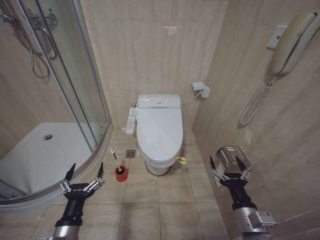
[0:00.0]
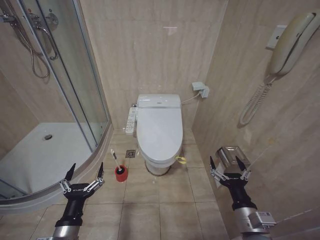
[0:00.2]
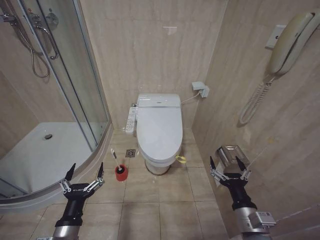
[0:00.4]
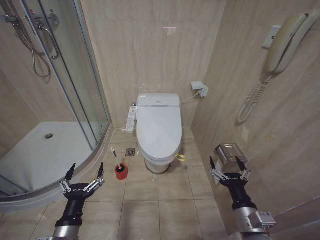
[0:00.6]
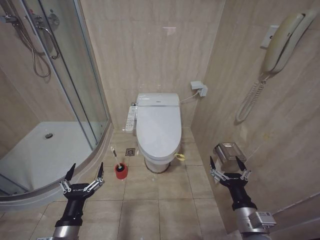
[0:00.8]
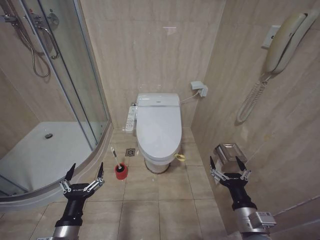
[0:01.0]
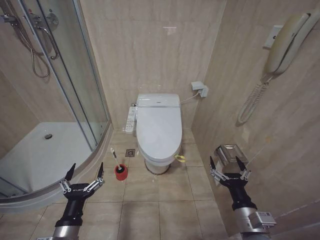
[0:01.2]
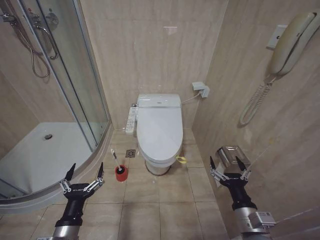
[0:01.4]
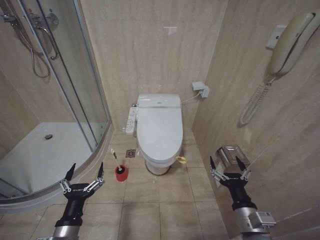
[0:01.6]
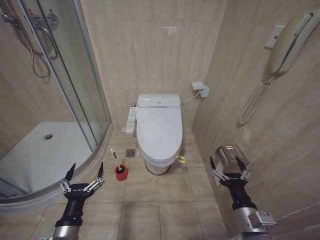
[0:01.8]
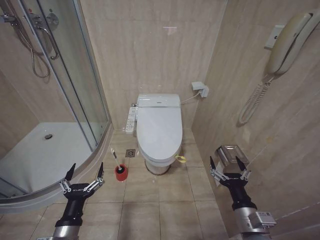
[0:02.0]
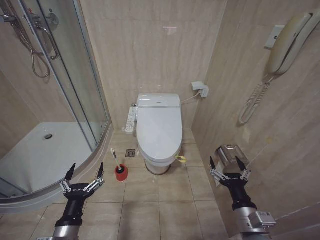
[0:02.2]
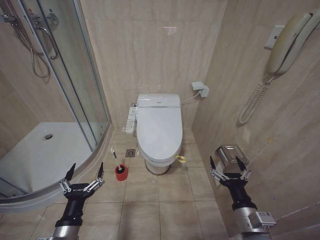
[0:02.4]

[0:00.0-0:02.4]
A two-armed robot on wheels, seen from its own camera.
Task of the whole recording: Open the toilet lid, clean the toilet bowl with a toilet brush, close the toilet lid, and flush.
0:00.0 to 0:02.4: Both grippers stay about where they are.

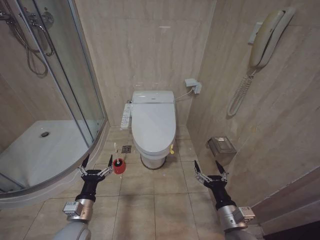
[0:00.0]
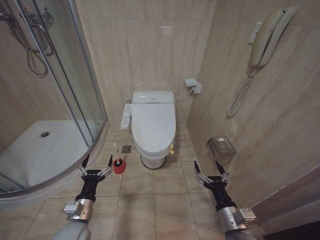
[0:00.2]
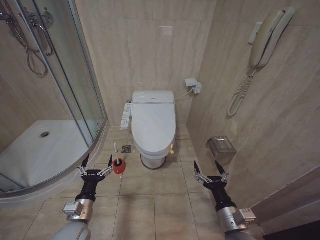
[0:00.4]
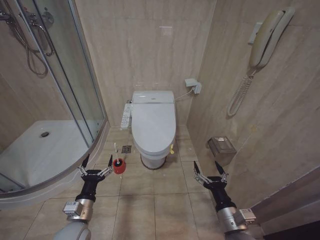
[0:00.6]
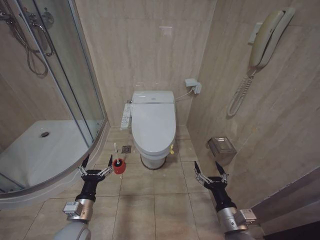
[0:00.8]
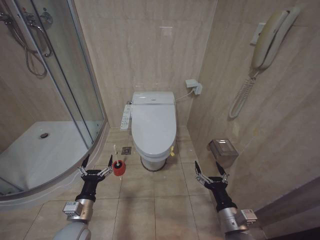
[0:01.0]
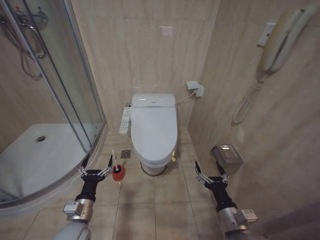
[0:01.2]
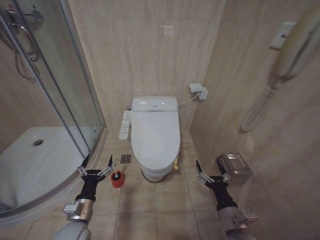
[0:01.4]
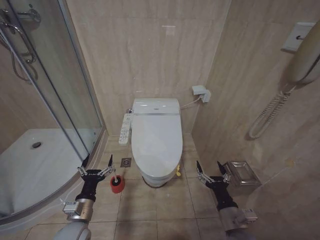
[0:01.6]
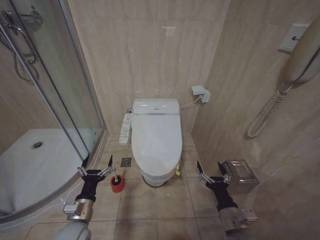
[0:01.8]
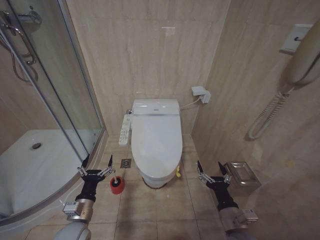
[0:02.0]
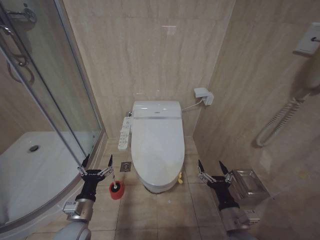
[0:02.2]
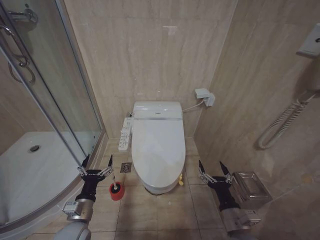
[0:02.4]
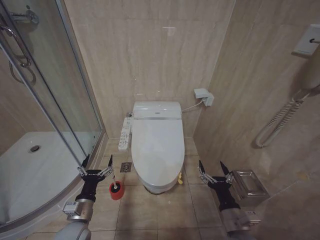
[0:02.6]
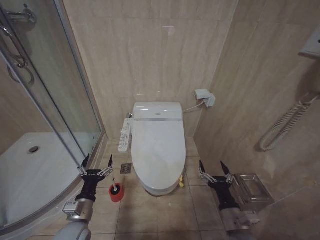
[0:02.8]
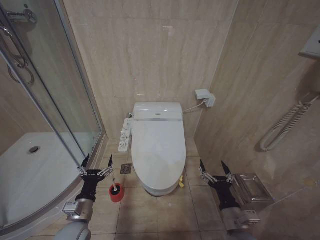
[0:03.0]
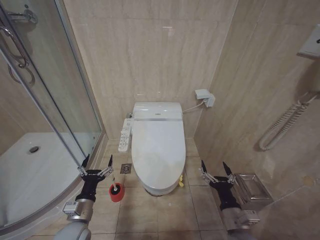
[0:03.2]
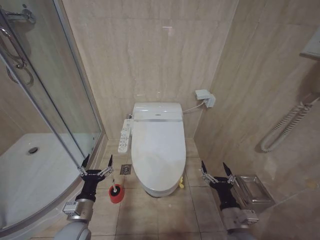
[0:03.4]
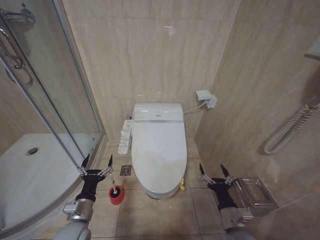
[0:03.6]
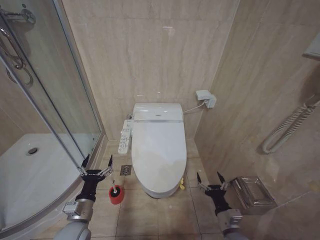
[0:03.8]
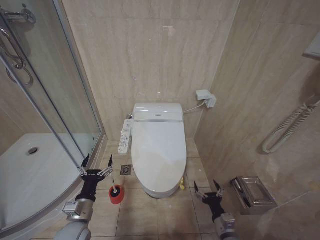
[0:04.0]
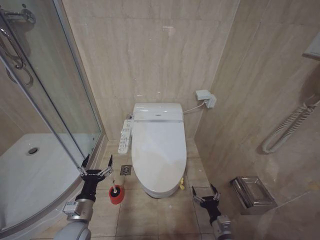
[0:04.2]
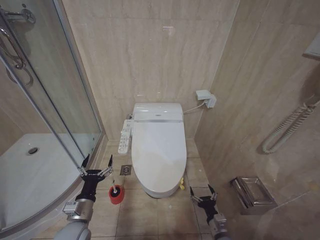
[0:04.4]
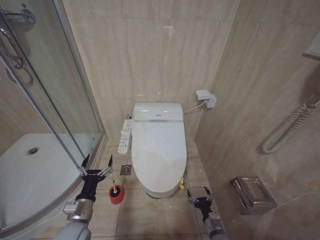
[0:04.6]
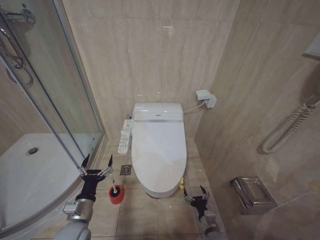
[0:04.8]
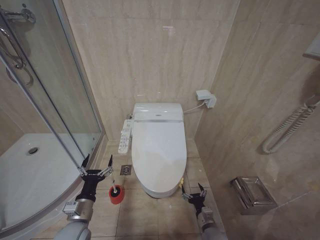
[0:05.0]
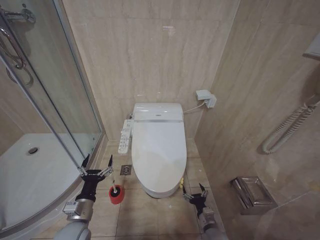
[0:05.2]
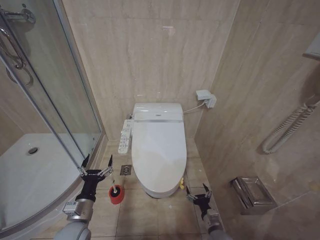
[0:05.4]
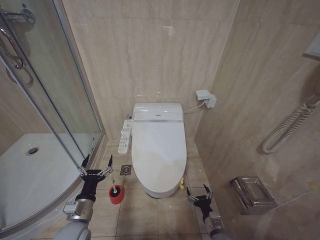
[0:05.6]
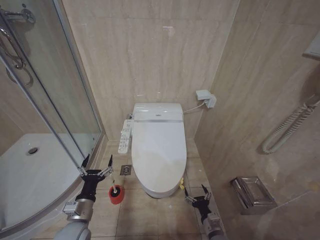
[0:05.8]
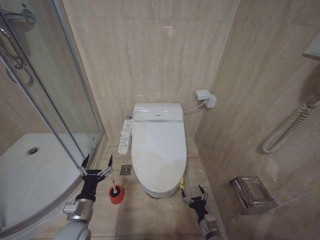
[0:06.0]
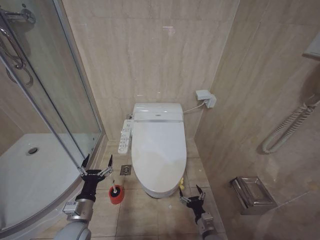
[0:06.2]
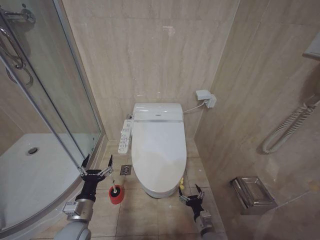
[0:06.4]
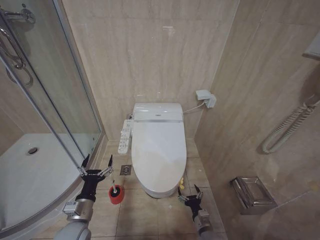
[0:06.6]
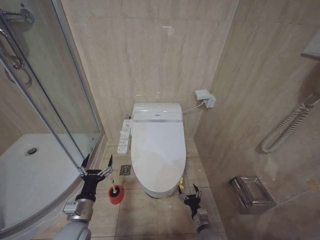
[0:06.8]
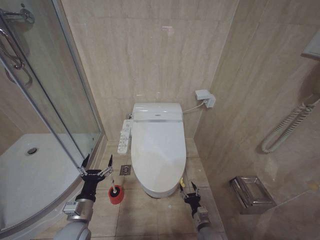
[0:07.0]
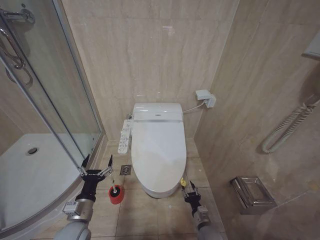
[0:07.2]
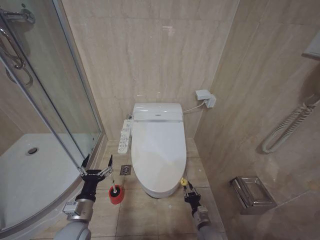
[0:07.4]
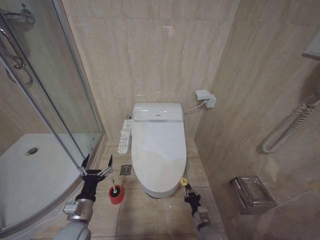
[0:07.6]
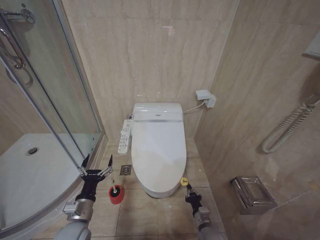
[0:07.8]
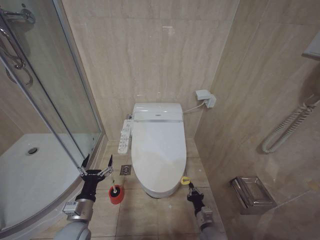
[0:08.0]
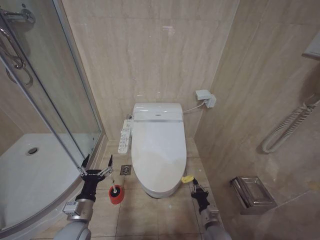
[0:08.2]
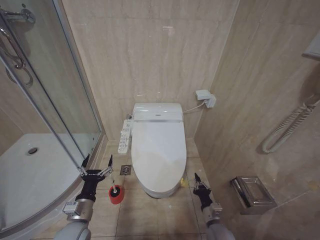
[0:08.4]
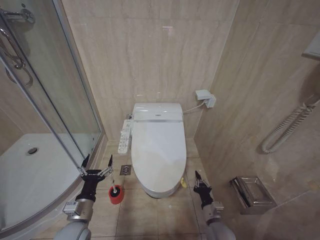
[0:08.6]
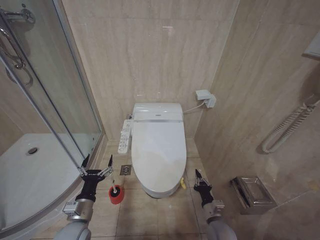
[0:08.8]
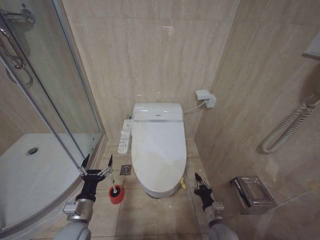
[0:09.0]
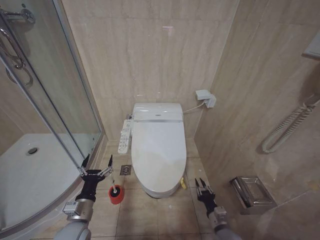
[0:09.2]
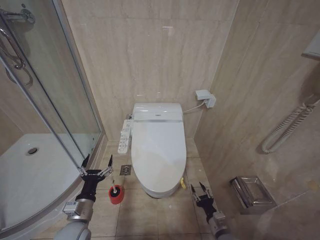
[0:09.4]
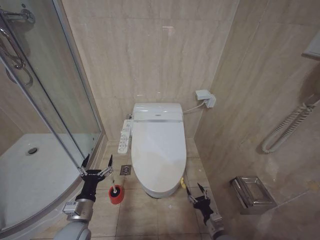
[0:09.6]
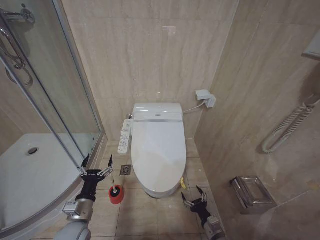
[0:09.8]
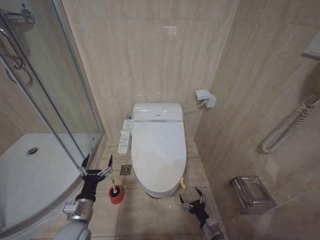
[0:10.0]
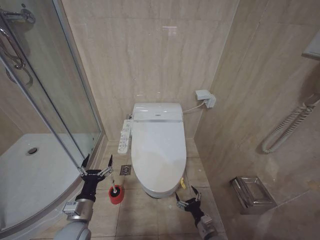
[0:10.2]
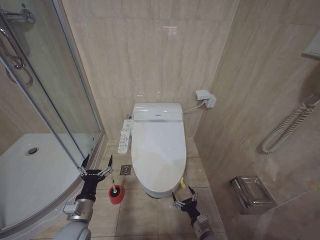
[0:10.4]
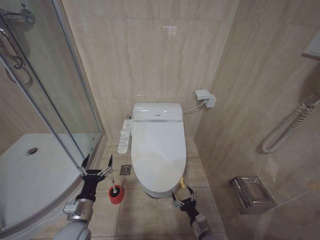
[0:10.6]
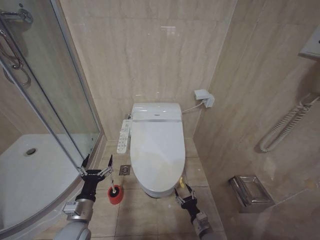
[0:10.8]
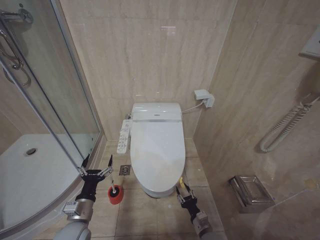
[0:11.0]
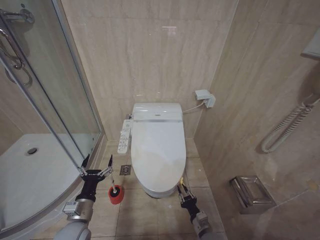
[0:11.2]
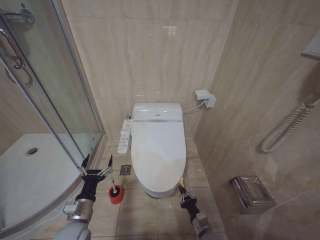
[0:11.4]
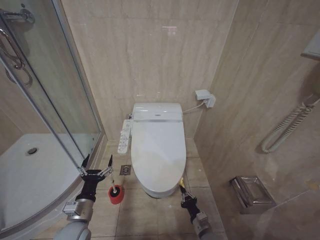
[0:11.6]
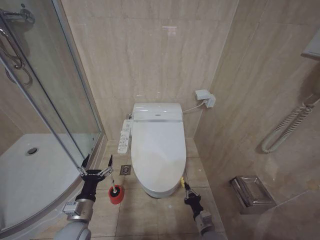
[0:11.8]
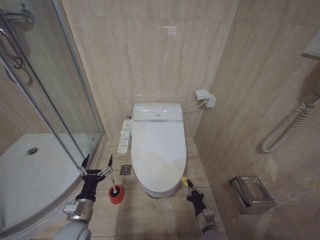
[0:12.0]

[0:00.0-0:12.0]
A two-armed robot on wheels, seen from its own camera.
Task of the whole recording: Open the toilet lid, clean the toilet bowl with a toilet brush, close the toilet lid, and flush.
0:01.6 to 0:03.0: The two grippers keep their place.
0:03.0 to 0:04.4: The right gripper goes roughly 15 cm downward.
0:06.0 to 0:07.6: The right gripper ends up about 5 cm from where it was, and closes up.
0:07.6 to 0:09.0: The right gripper goes some 10 cm upward.
0:09.0 to 0:10.4: The right gripper changes place by approximately 5 cm, and opens its fingers.
0:10.4 to 0:12.0: The right gripper closes.

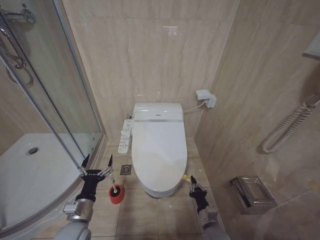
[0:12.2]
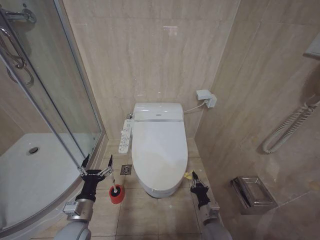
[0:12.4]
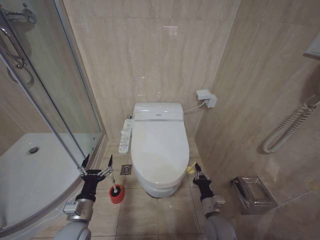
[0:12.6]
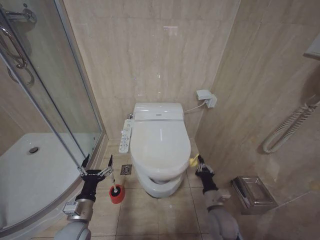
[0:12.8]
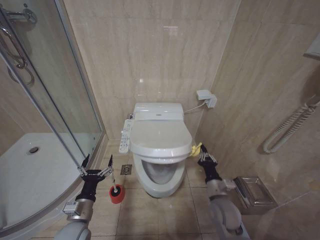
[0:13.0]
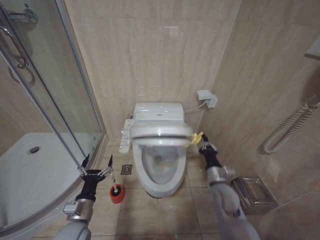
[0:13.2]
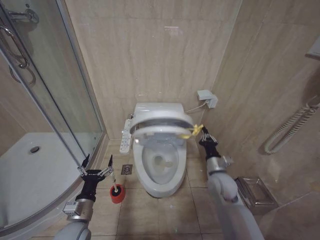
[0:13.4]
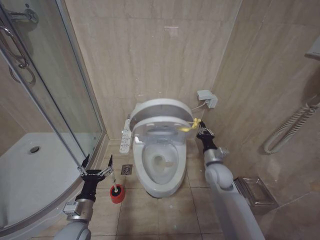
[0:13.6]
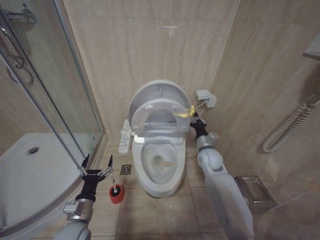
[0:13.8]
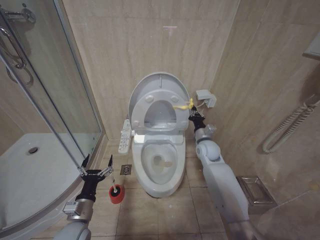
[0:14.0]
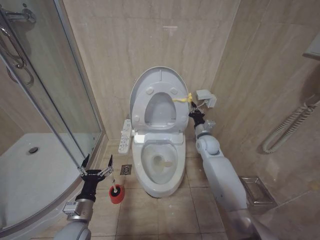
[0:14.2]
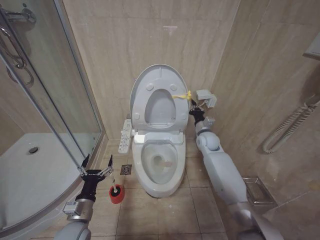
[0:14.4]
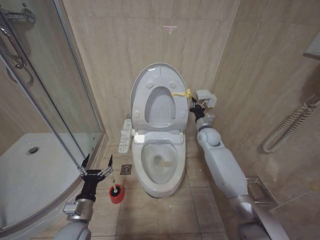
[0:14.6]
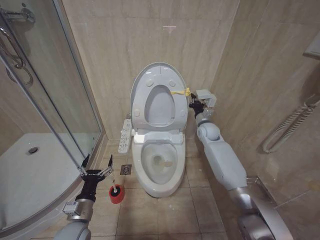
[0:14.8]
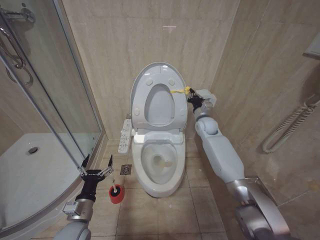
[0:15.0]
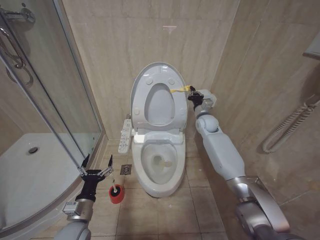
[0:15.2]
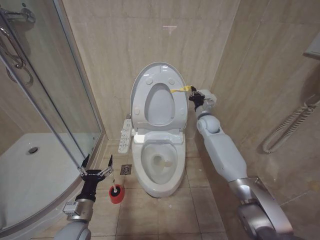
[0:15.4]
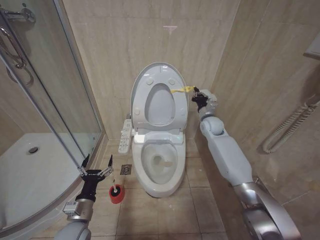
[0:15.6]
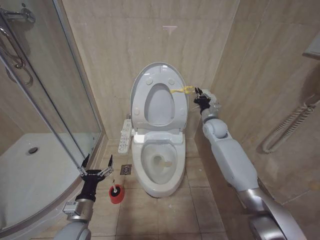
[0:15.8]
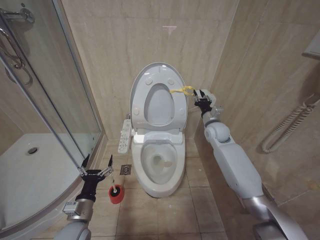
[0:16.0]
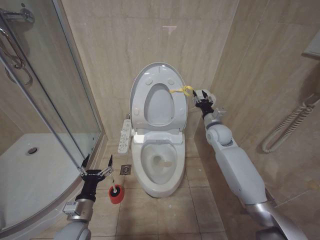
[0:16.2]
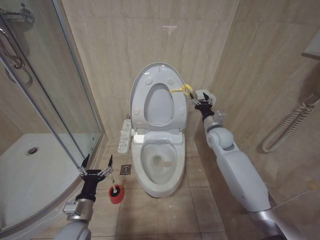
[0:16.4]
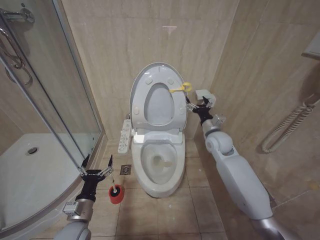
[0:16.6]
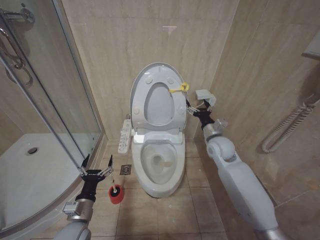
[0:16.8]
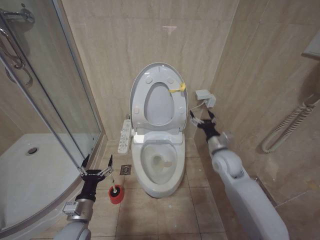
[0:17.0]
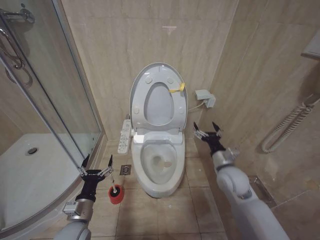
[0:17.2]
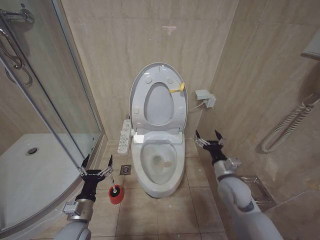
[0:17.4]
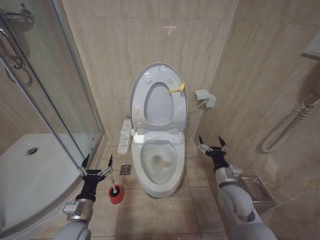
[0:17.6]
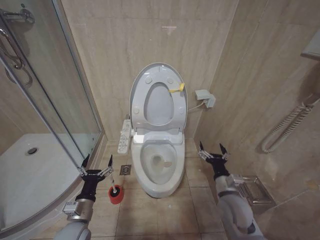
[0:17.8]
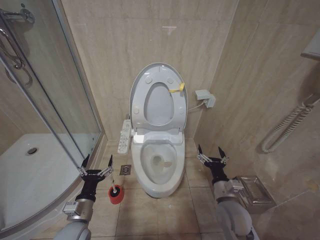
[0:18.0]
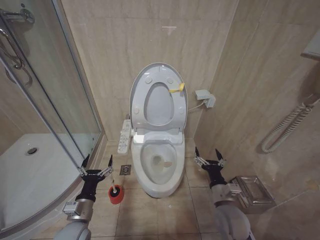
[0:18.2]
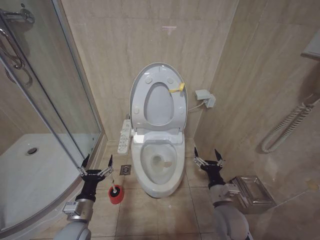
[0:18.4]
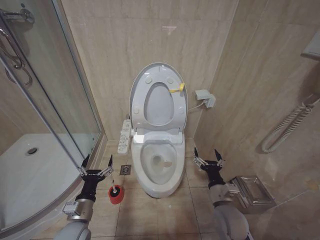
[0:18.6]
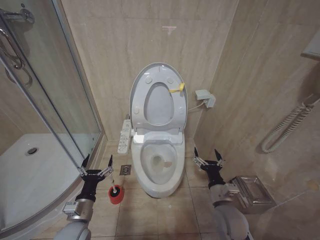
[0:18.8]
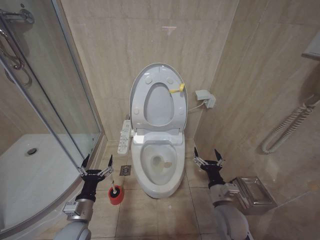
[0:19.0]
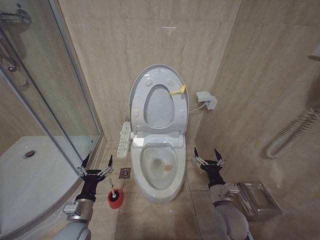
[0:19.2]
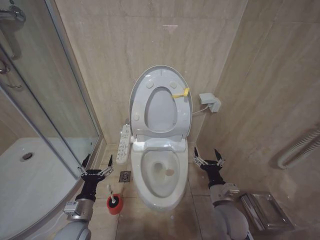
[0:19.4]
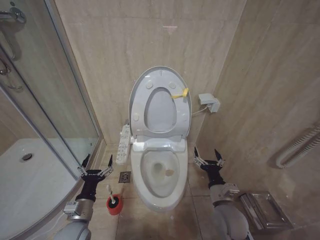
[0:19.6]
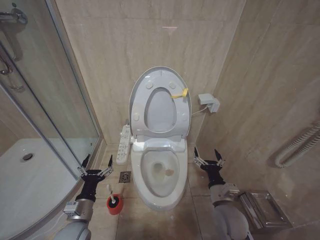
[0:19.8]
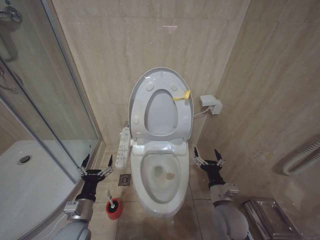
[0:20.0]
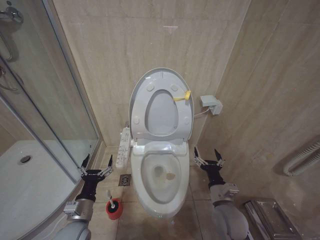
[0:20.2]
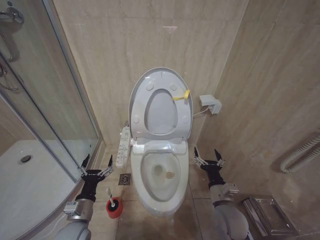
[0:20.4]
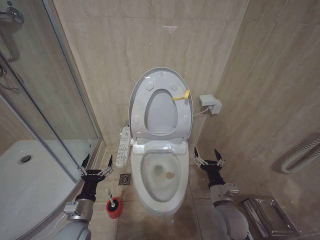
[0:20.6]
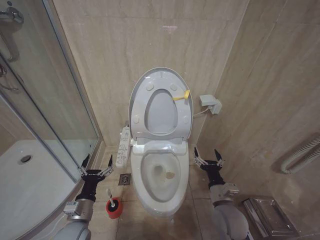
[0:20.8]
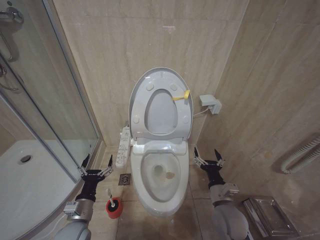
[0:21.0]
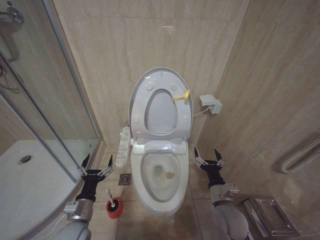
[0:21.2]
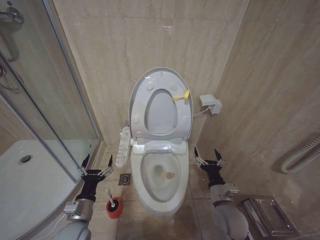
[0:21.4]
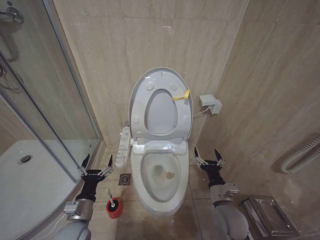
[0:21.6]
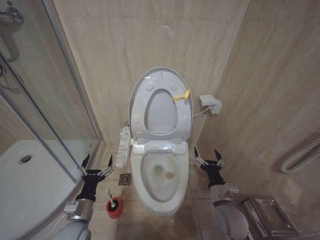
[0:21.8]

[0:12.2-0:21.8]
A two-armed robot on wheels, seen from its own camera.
Task of the whole recording: Open the toilet lid, clean the toilet bowl with a toilet brush, close the toilet lid, and flush.
0:12.2 to 0:13.8: The right gripper moves upward and forward, about 30 cm.
0:13.8 to 0:15.4: The right gripper heads forward and upward, covering roughly 20 cm.
0:15.4 to 0:17.0: The right gripper heads backward, covering roughly 15 cm, and opens.
0:17.0 to 0:18.6: The right gripper is displaced backward and downward by approximately 20 cm.
0:18.6 to 0:21.8: Both grippers stay about where they are.
